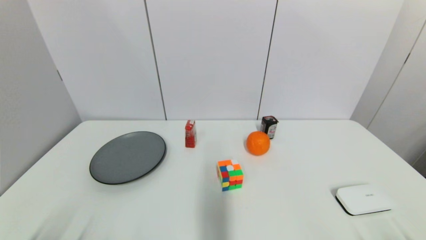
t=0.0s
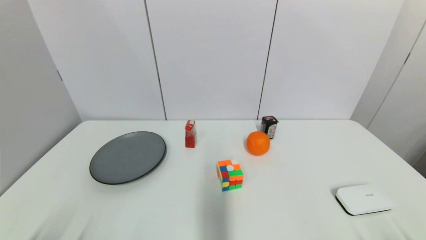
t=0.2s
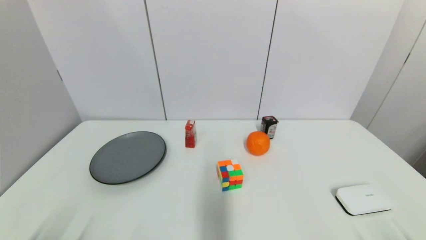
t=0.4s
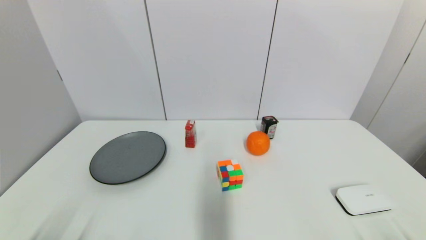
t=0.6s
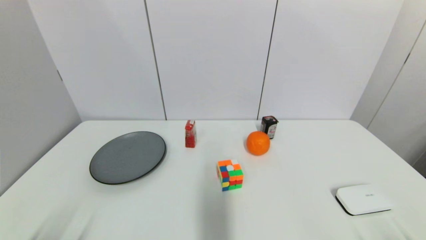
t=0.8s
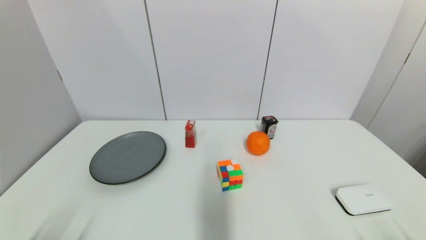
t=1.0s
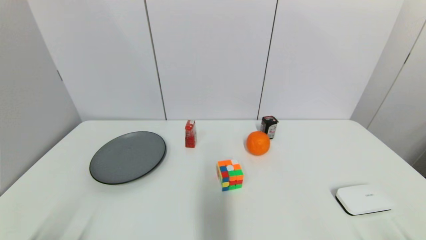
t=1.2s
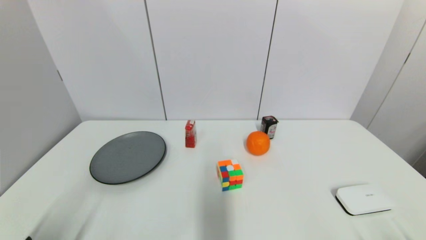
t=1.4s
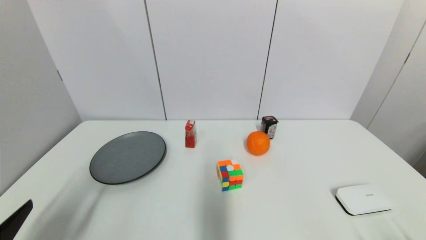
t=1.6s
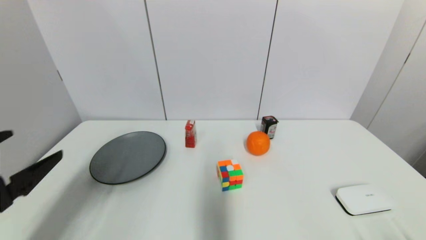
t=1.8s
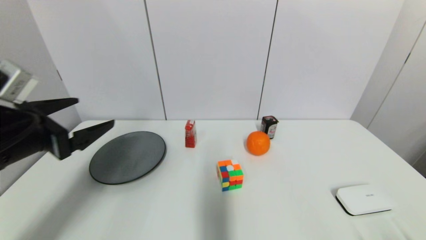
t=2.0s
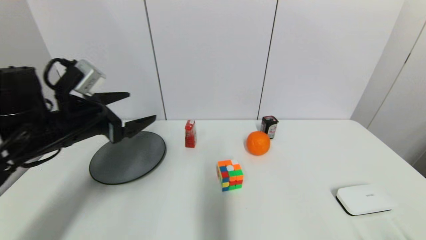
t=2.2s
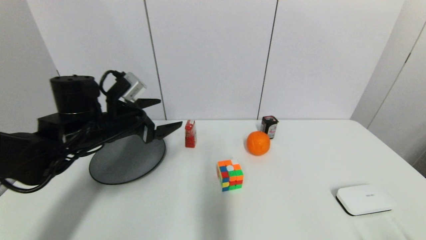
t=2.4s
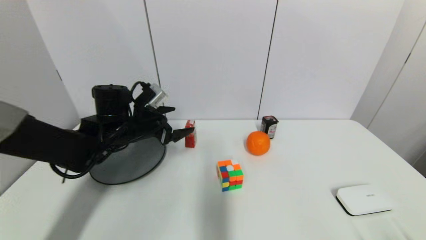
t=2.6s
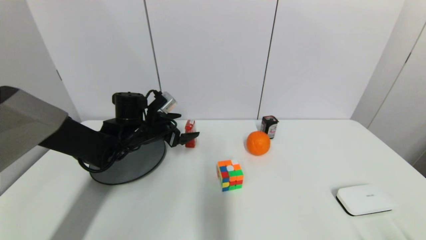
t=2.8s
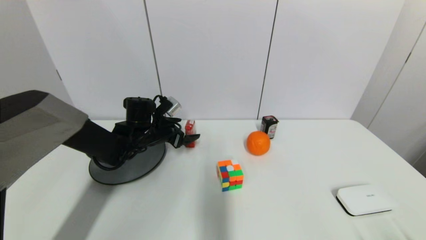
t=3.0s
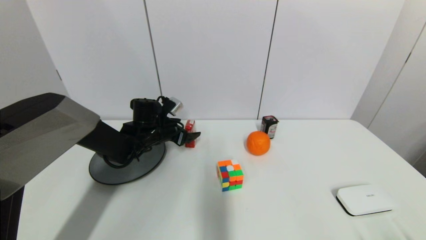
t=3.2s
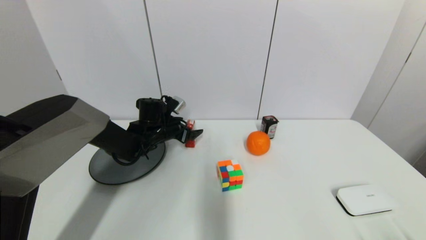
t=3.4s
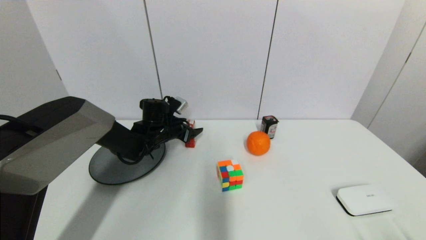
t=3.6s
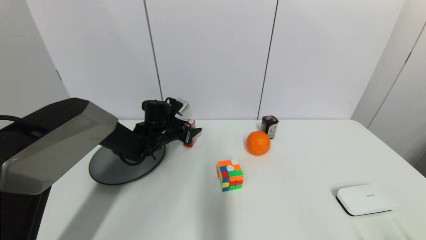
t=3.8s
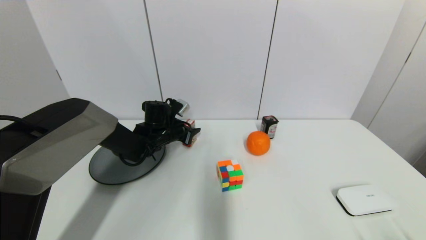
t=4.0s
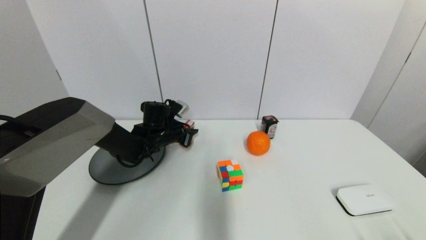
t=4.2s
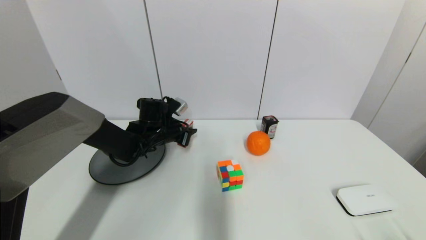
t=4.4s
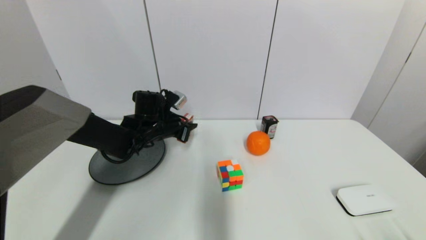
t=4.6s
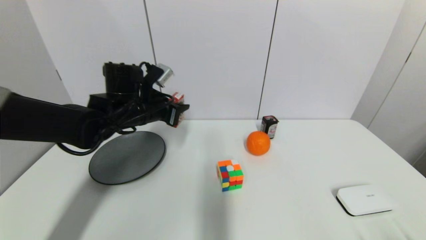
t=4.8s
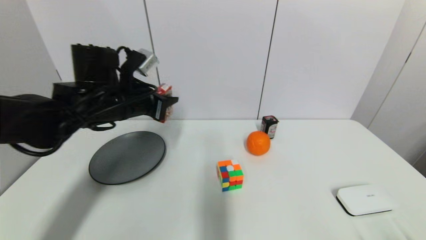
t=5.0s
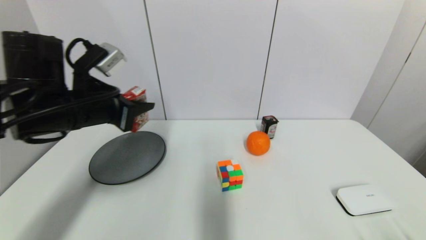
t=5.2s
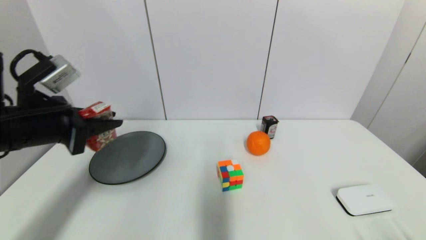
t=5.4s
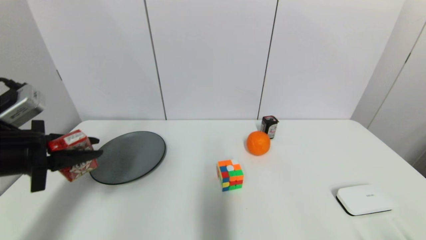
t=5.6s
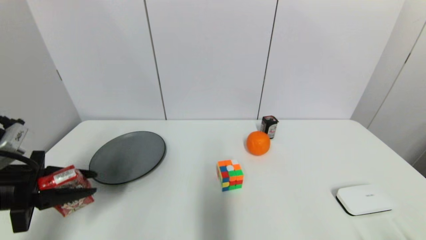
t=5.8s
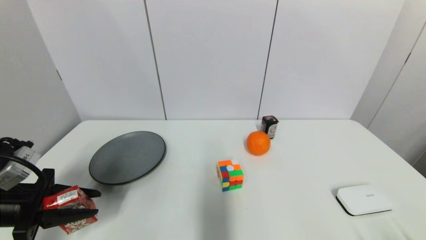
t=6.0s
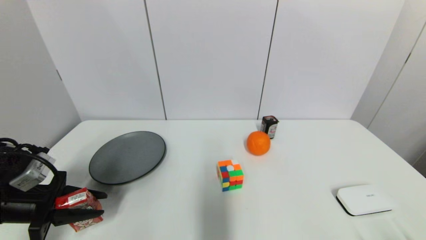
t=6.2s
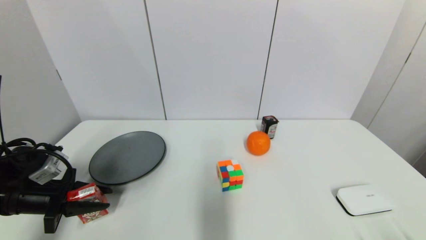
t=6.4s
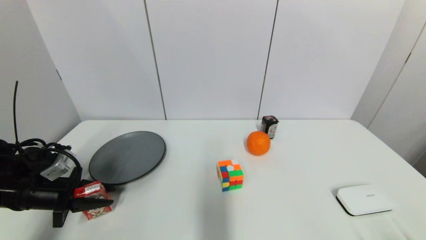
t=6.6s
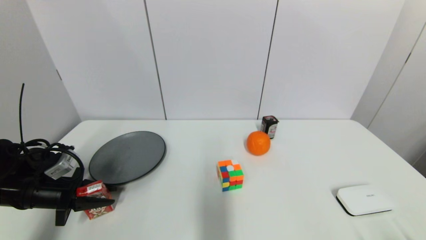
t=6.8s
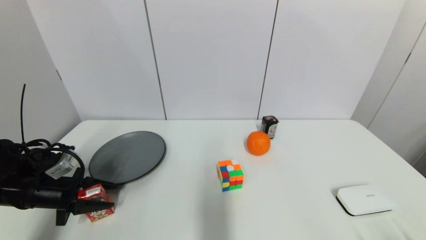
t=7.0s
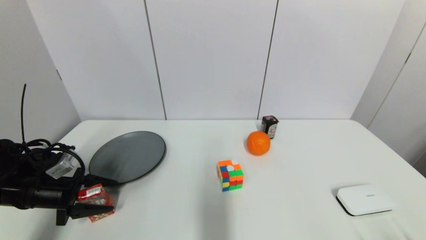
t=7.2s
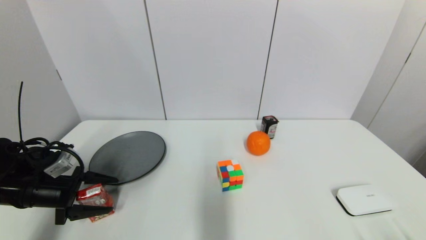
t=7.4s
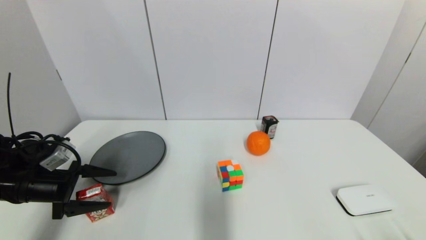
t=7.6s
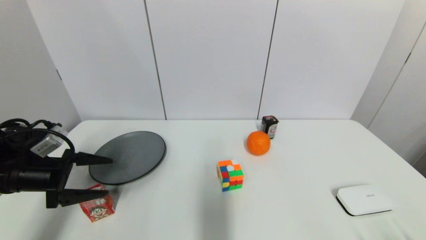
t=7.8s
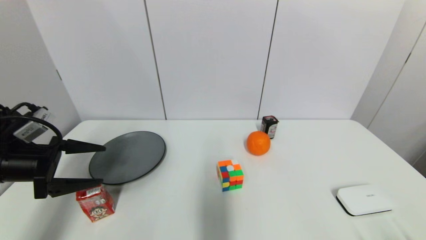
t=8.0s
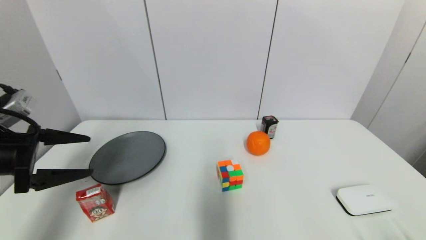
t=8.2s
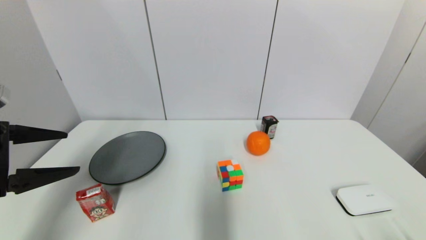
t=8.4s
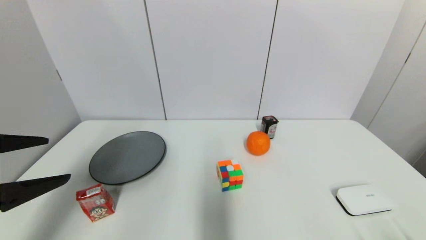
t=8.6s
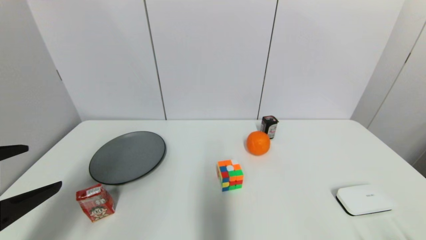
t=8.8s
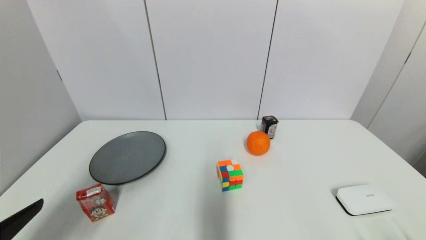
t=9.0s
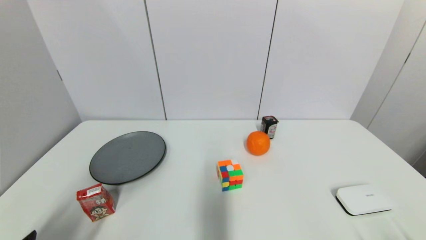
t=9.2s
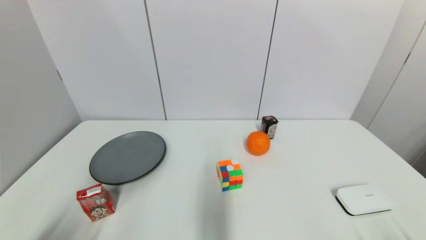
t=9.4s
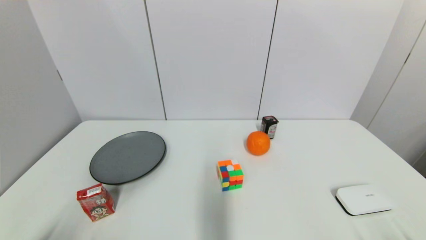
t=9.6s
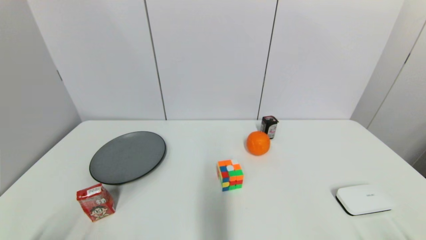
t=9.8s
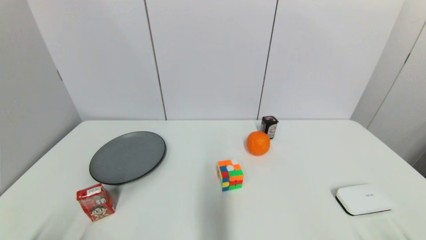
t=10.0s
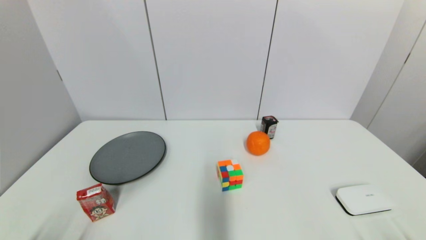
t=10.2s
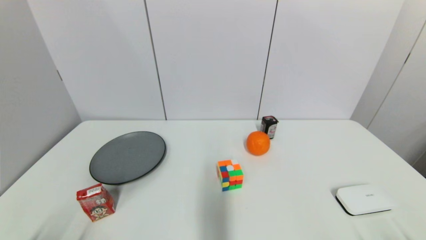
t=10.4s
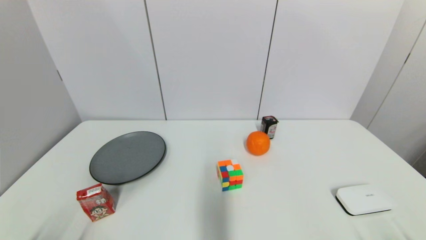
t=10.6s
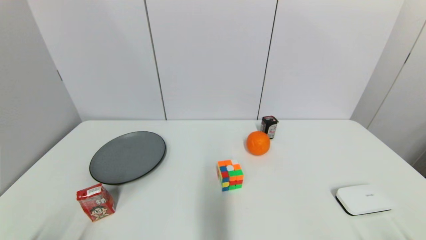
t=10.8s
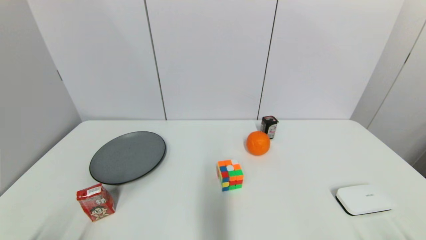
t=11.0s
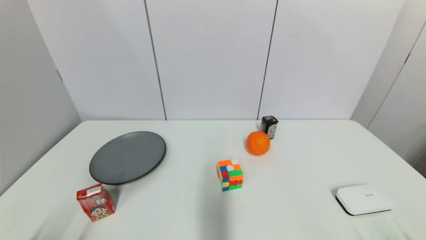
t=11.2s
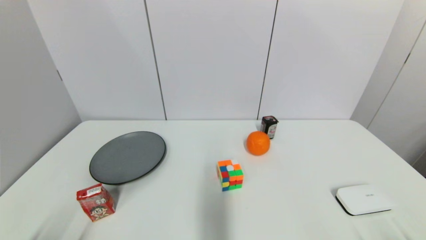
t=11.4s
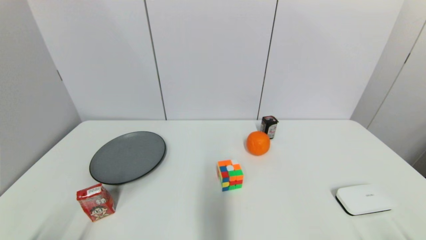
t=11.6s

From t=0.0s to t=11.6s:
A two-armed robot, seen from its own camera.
Step, from t=1.4s to t=4.2s: Grasp the wangzai milk with left gripper.
Step, from t=4.4s to t=7.0s: Place the wangzai milk on the table with left gripper.
From t=1.4s to t=2.8s: The left gripper travels forward by about 35 cm.
From t=2.8s to t=4.4s: The left gripper moves some 5 cm, and closes its fingers.
From t=4.4s to t=5.8s: The left gripper travels backward and to the left by some 30 cm.
From t=5.8s to t=7.2s: The left gripper travels downward and forward by roughly 10 cm, and opens up.
From t=7.2s to t=8.8s: The left gripper is displaced backward and upward by roughly 25 cm, and opens up.
From t=8.8s to t=10.2s: The left gripper shifts roughly 20 cm downward and backward.
From t=10.2s to t=11.6s: Both grippers stay put.

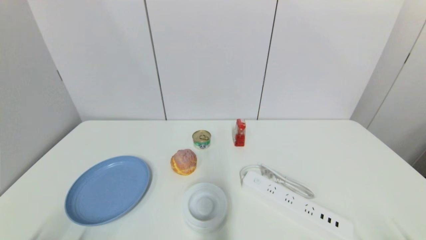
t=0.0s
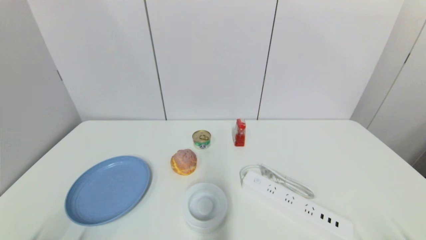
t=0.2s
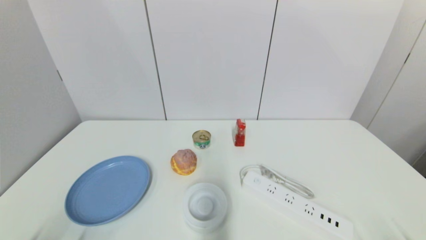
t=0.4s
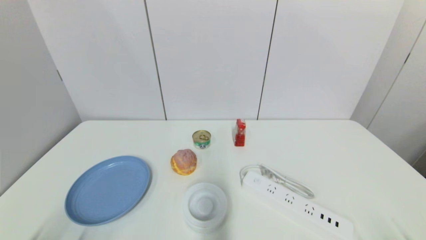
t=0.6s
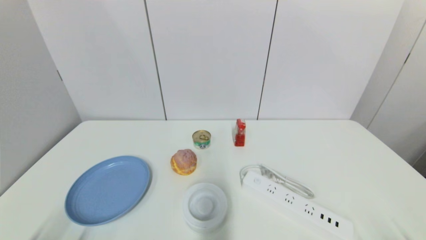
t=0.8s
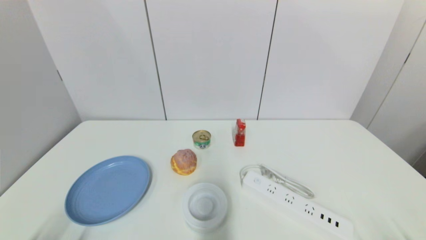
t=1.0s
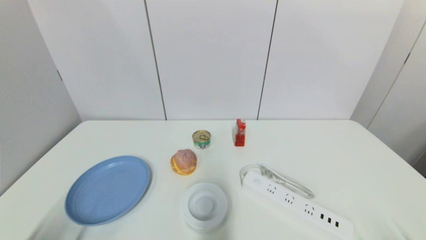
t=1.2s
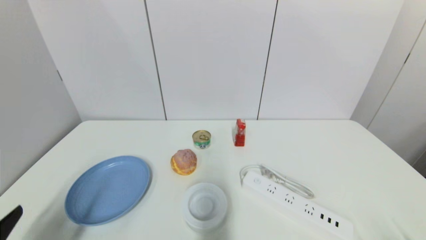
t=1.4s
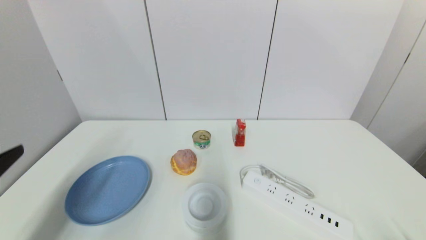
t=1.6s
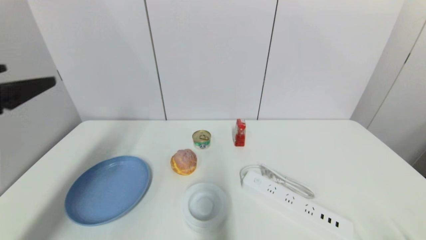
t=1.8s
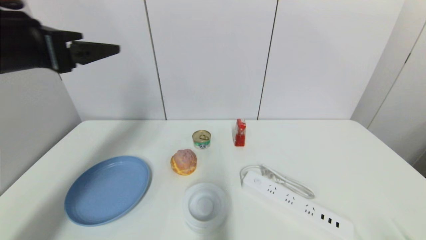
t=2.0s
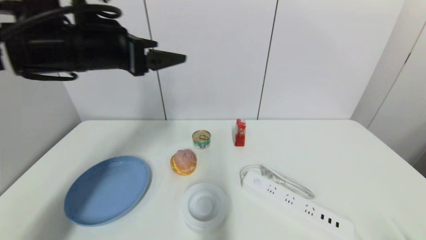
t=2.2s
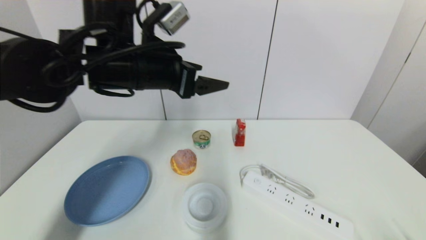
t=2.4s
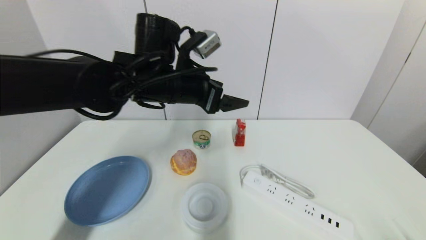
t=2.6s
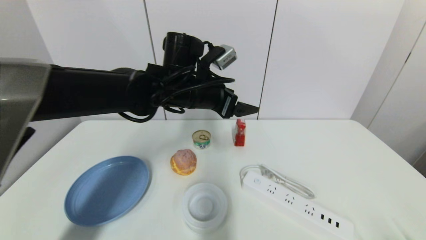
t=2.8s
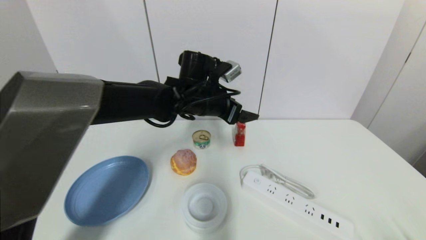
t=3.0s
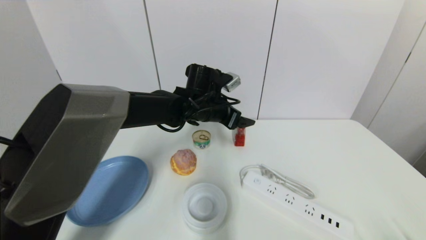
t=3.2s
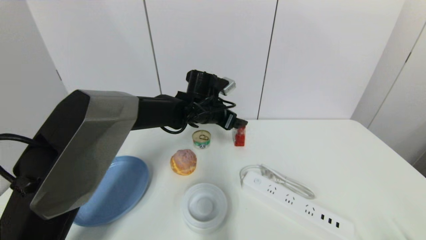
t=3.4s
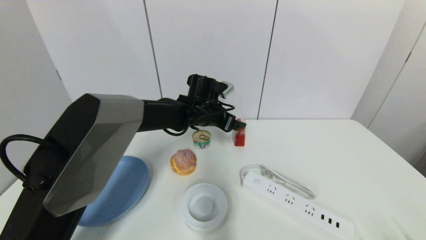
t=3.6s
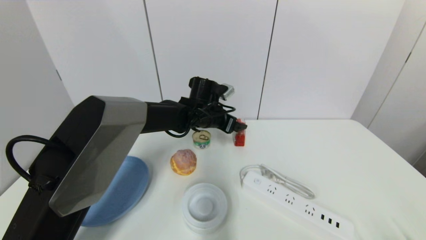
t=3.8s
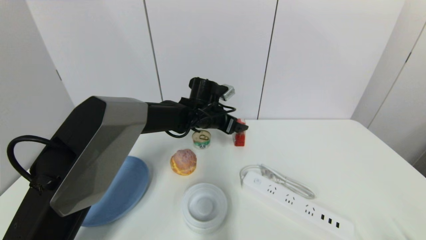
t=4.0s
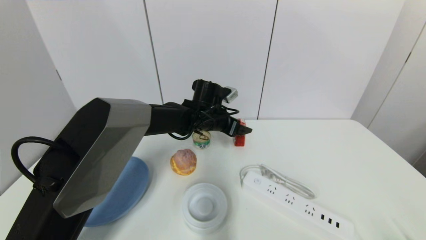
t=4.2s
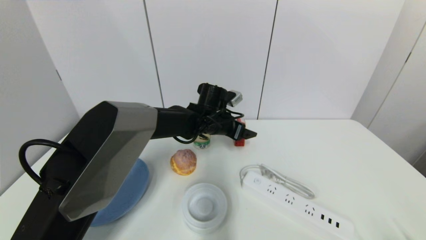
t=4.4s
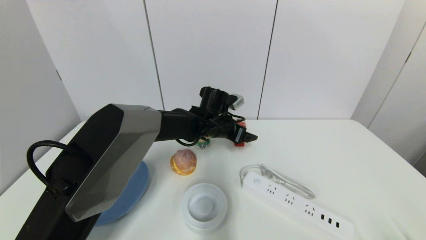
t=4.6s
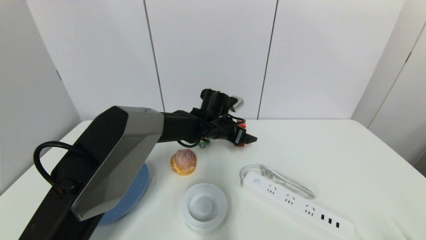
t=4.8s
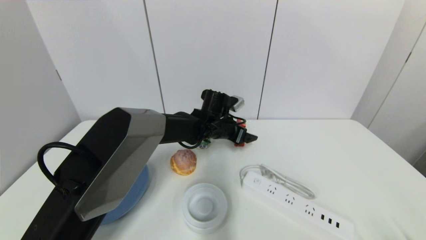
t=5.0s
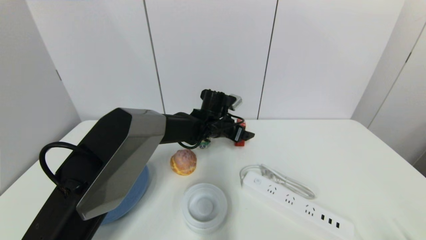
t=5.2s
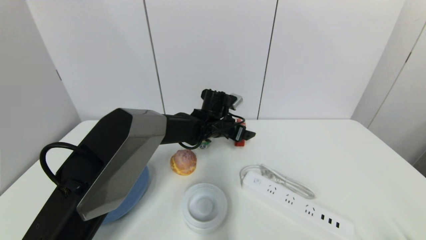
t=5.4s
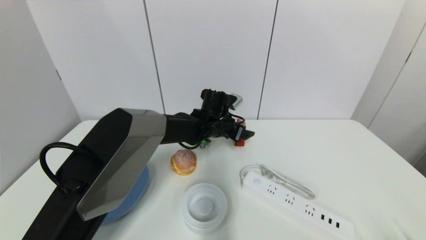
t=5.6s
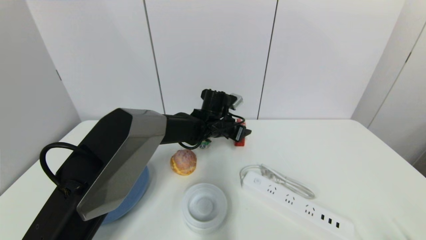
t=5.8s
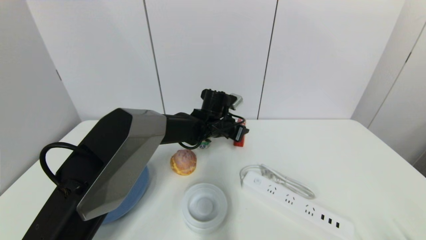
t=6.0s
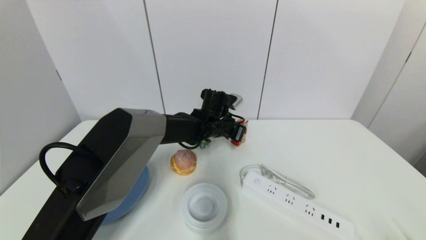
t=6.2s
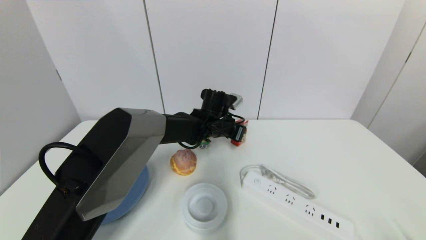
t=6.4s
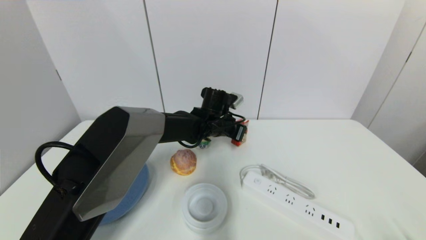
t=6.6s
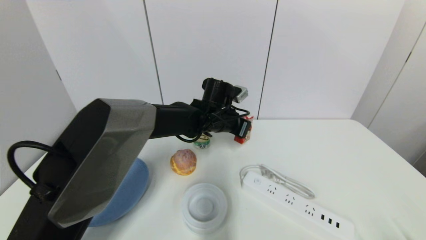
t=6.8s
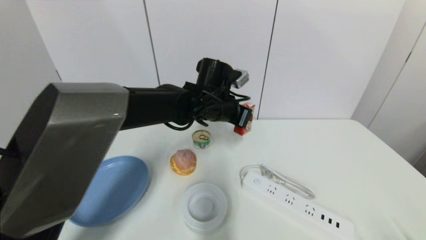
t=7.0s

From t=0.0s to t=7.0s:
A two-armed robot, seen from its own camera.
Step, from t=1.4s to t=6.4s: Grasp the wangzai milk with left gripper.
From t=0.0s to t=1.4s: The left gripper travels upward by roughly 10 cm.
From t=1.4s to t=2.8s: The left gripper shifts some 40 cm forward and to the right.
From t=2.8s to t=4.2s: The left gripper goes roughly 15 cm downward and forward.
From t=4.2s to t=5.6s: The grippers move only a little.
From t=5.6s to t=7.0s: The left gripper travels upward and backward by roughly 10 cm, and closes its fingers.
